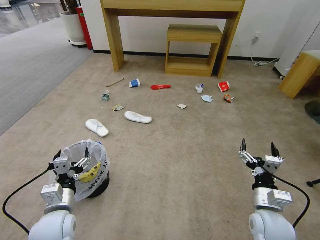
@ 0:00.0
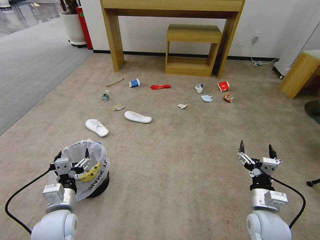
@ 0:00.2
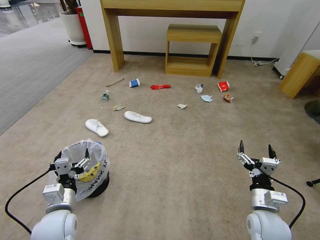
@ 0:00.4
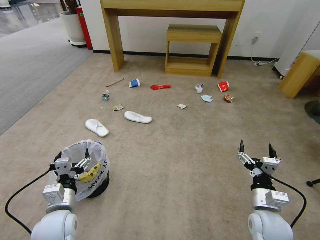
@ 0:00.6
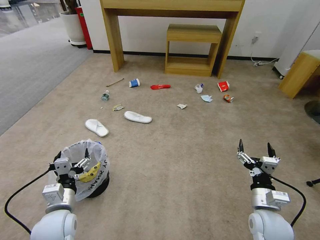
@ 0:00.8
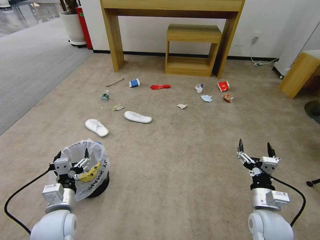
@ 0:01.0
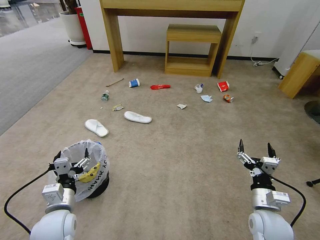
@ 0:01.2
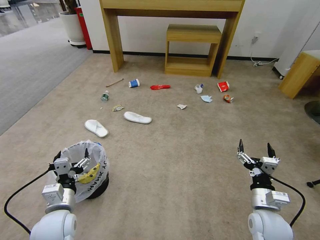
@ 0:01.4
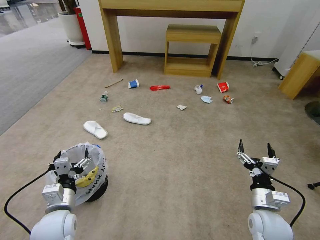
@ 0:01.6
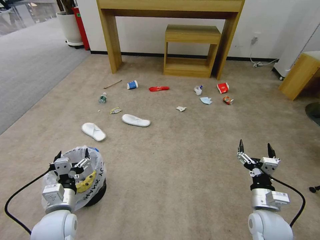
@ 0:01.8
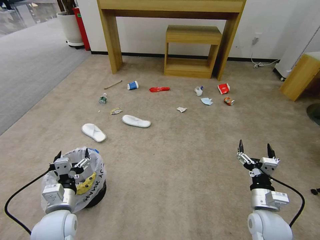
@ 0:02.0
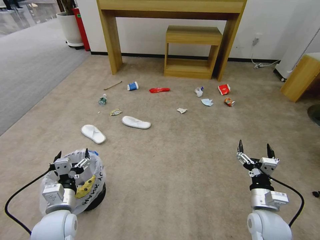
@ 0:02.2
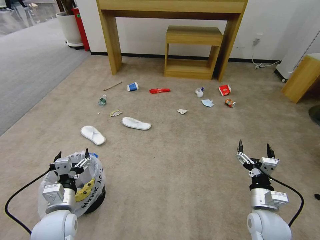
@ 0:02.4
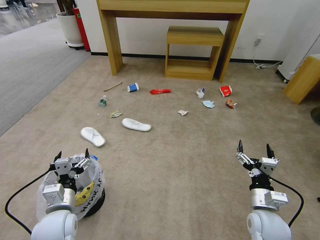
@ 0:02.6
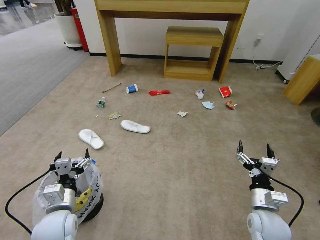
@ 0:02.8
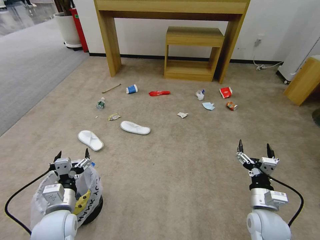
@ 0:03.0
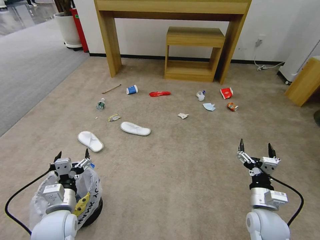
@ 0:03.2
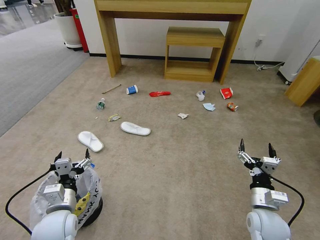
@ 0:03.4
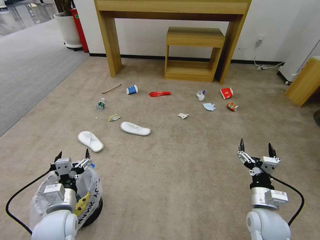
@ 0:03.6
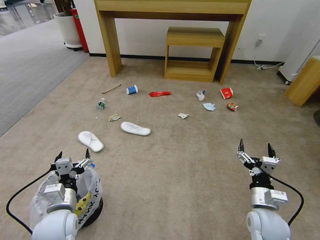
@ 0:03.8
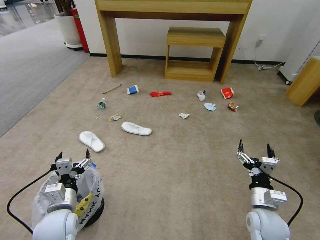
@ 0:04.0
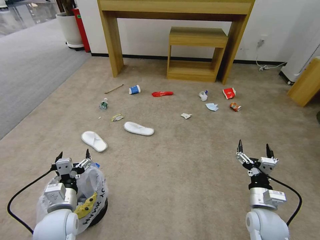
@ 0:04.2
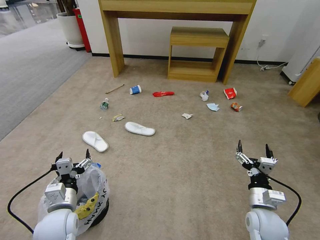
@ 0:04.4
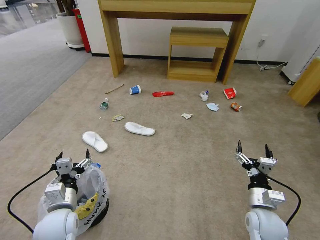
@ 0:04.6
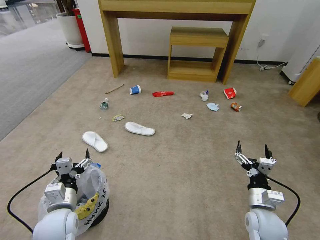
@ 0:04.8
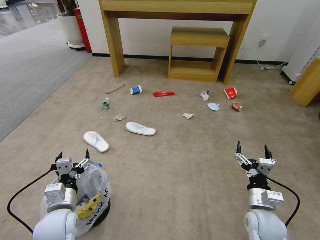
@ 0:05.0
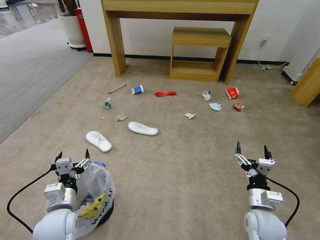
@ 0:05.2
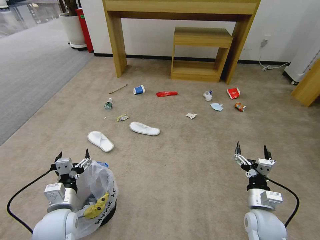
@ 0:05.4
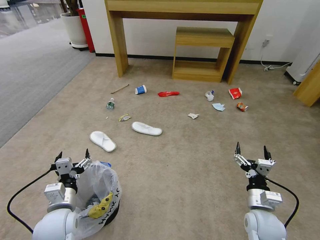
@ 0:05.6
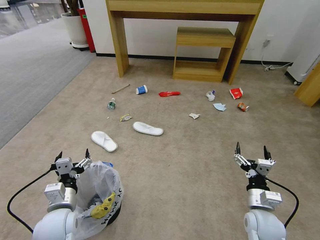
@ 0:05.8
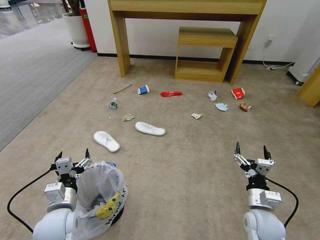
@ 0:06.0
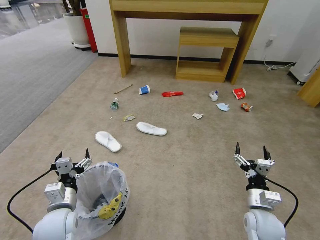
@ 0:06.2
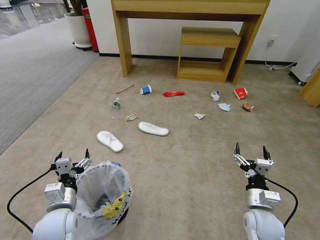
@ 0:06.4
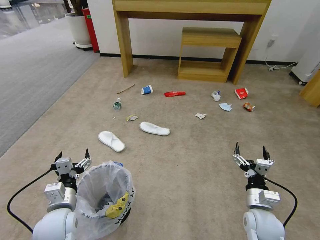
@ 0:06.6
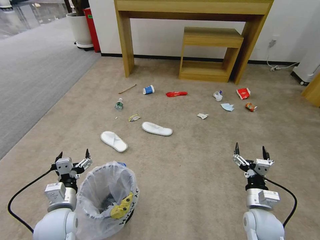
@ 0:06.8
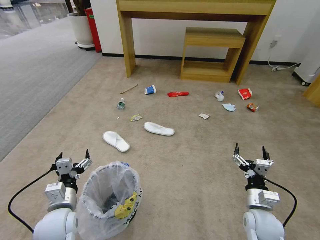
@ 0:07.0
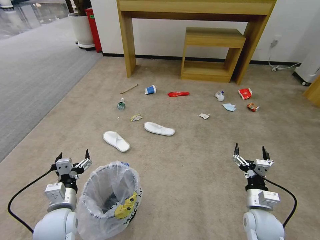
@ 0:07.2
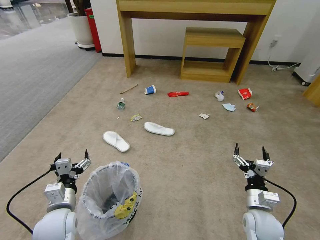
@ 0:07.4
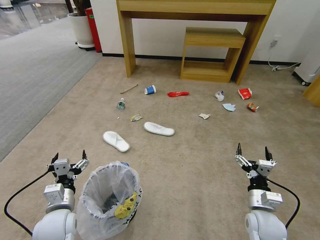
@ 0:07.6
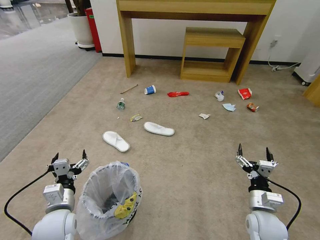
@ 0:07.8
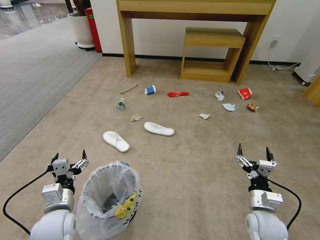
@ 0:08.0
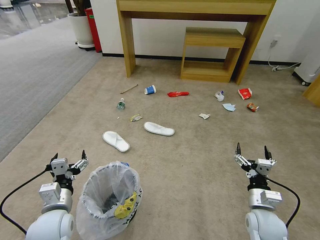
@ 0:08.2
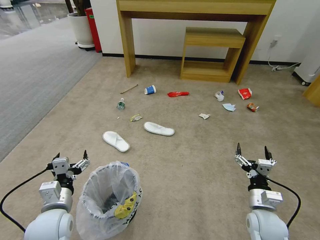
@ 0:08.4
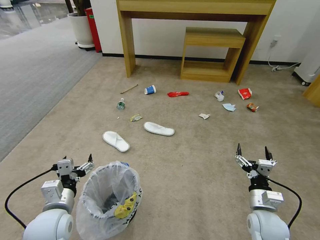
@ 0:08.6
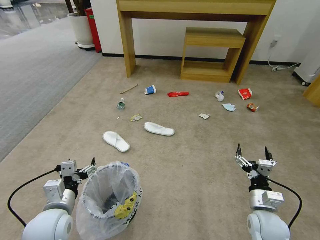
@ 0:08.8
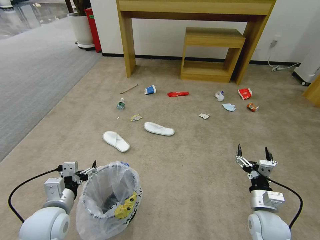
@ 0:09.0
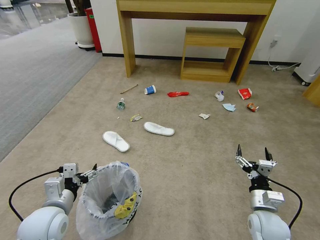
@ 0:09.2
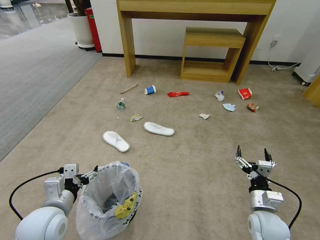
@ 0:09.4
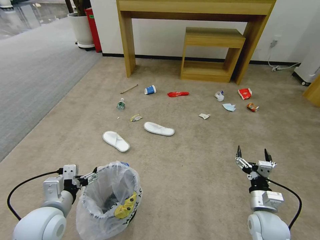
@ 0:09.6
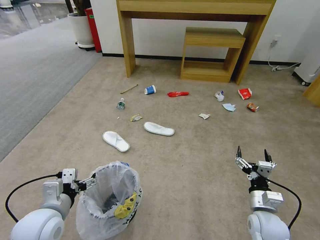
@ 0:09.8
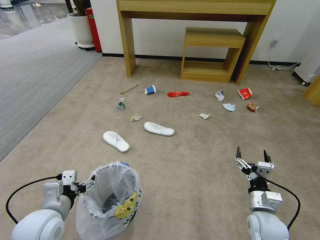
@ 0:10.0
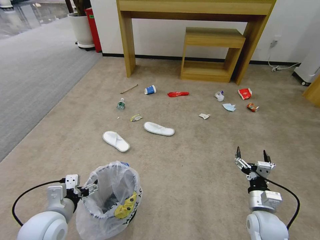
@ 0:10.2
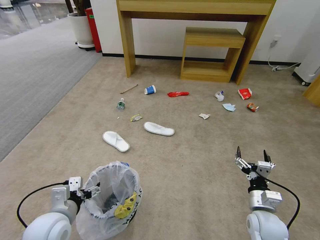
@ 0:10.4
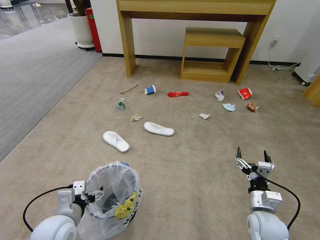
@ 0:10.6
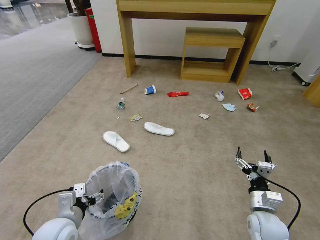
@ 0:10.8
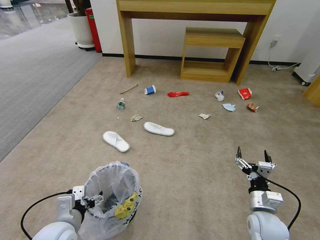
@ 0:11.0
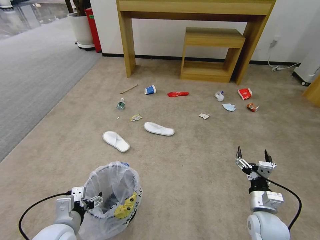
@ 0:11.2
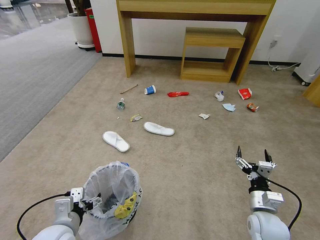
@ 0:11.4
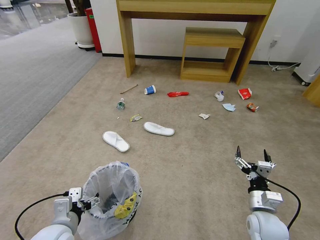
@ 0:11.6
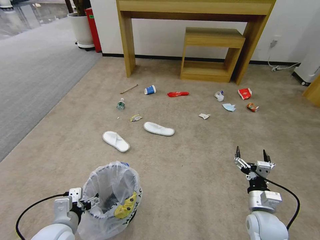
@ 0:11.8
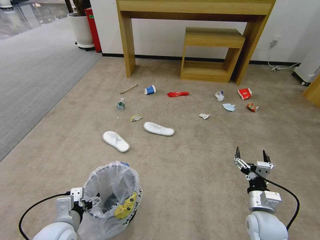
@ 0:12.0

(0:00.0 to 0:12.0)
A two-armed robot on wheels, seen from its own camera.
Task of the whole recording: Pick up the trash bin and place the garbage on the floor into it.
0:01.6 - 0:04.4: Both grippers stay put.
0:04.4 - 0:06.0: Both grippers stay put.
0:06.0 - 0:07.6: The two grippers keep their place.
0:07.6 - 0:09.0: The grippers stay close to where they were, moving slightly.
0:09.0 - 0:10.4: There are only small adjustments of the grippers.
0:10.4 - 0:12.0: The grippers move only a little.

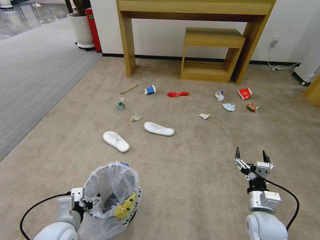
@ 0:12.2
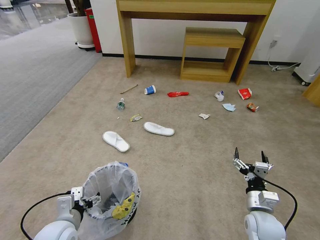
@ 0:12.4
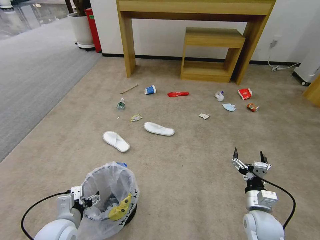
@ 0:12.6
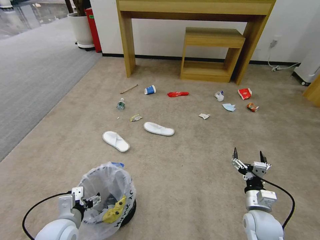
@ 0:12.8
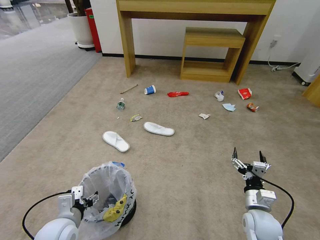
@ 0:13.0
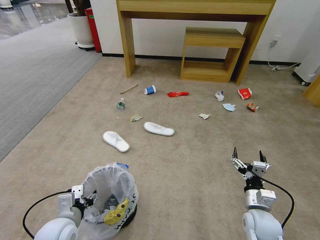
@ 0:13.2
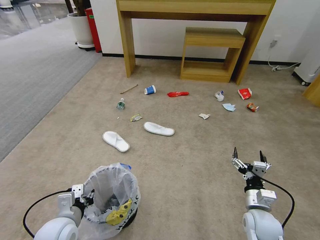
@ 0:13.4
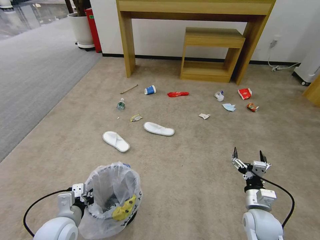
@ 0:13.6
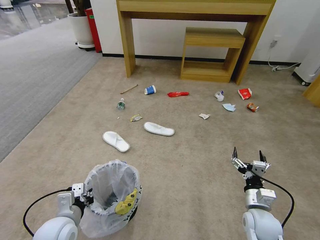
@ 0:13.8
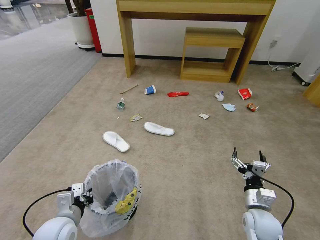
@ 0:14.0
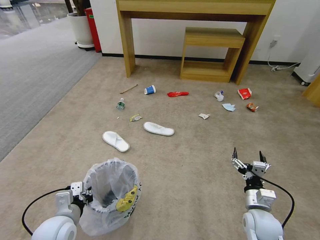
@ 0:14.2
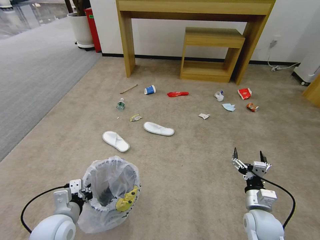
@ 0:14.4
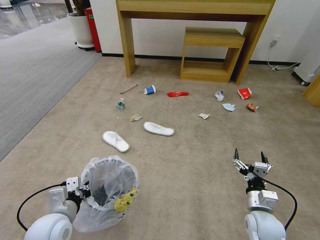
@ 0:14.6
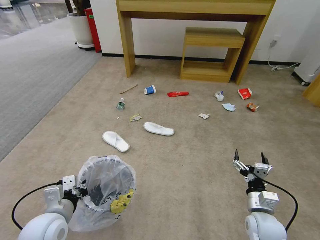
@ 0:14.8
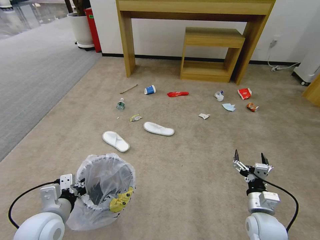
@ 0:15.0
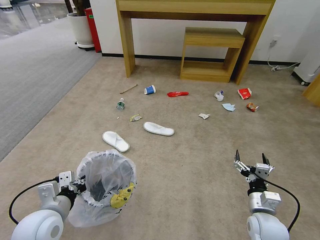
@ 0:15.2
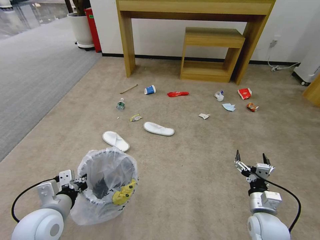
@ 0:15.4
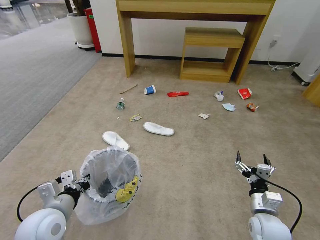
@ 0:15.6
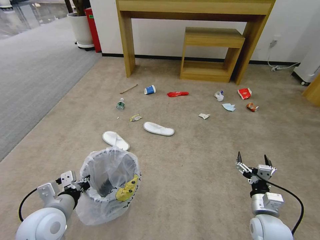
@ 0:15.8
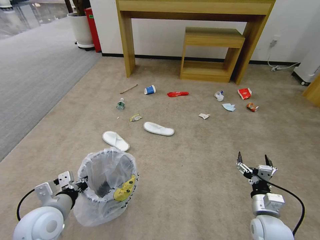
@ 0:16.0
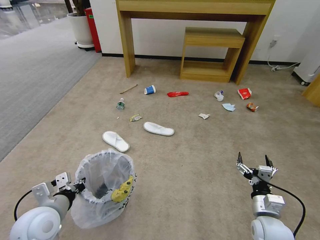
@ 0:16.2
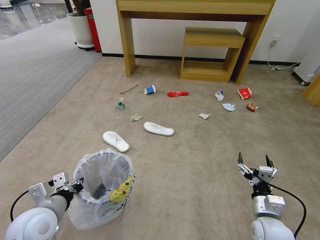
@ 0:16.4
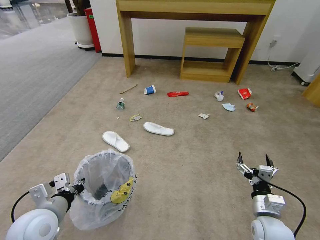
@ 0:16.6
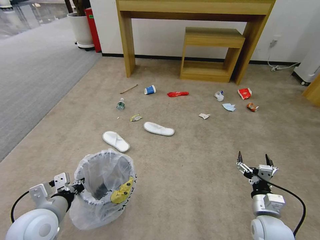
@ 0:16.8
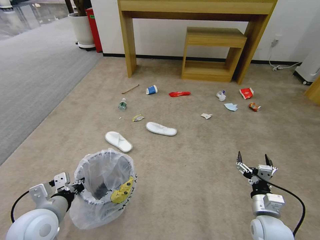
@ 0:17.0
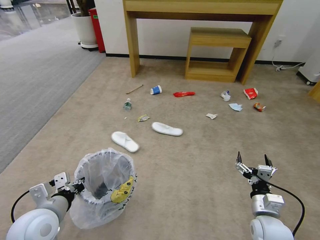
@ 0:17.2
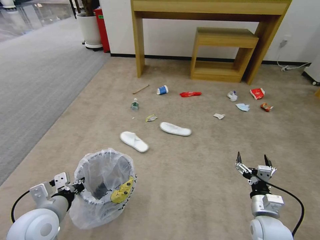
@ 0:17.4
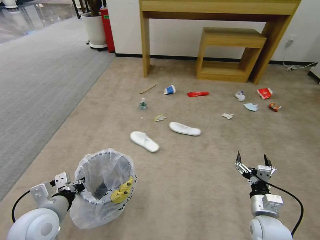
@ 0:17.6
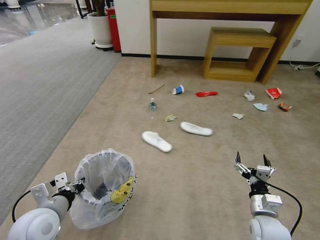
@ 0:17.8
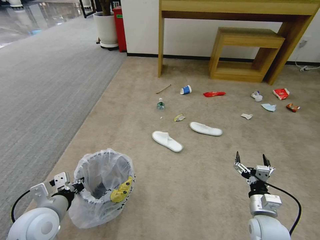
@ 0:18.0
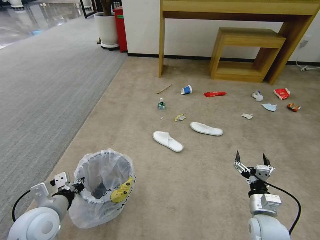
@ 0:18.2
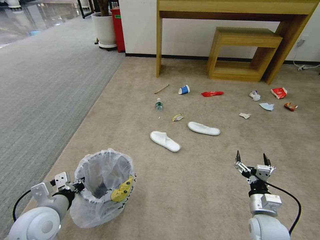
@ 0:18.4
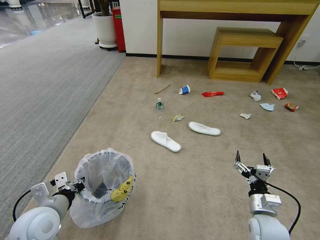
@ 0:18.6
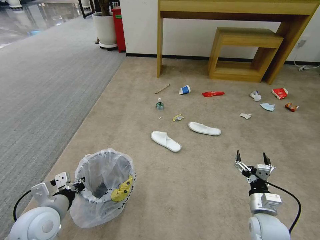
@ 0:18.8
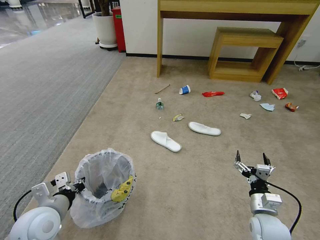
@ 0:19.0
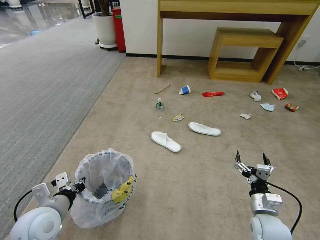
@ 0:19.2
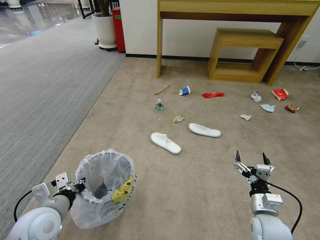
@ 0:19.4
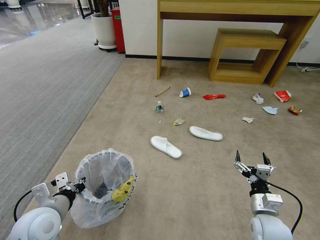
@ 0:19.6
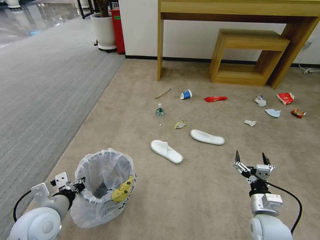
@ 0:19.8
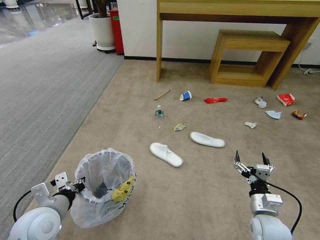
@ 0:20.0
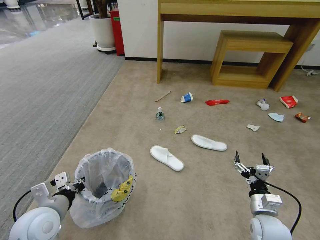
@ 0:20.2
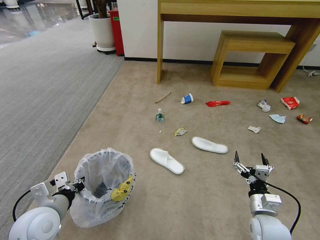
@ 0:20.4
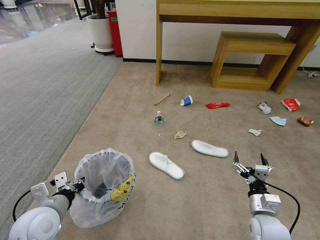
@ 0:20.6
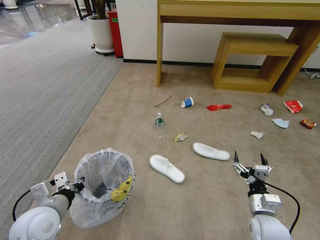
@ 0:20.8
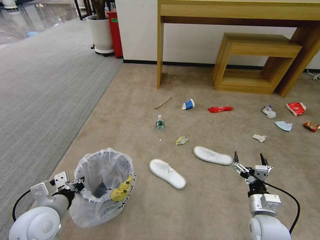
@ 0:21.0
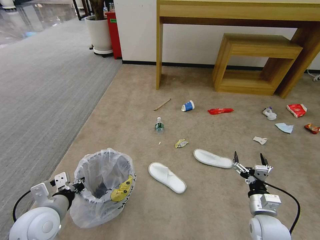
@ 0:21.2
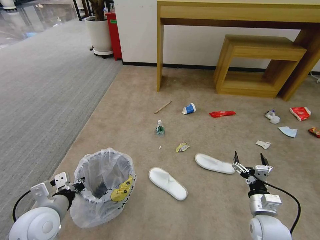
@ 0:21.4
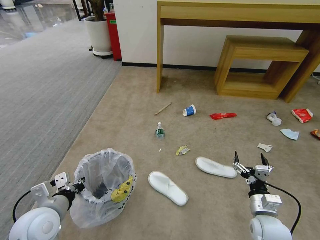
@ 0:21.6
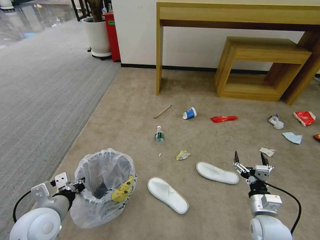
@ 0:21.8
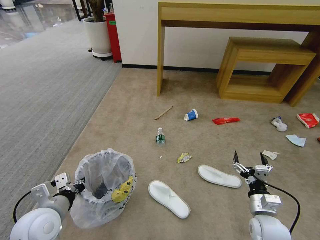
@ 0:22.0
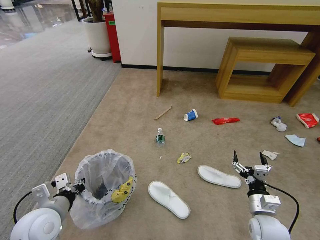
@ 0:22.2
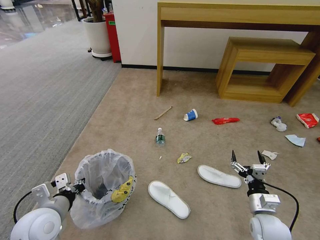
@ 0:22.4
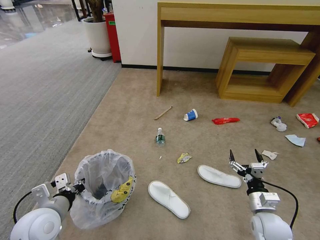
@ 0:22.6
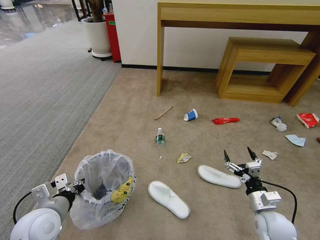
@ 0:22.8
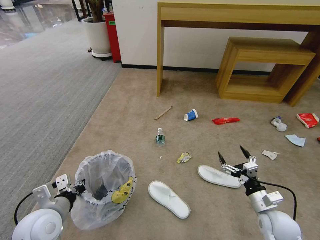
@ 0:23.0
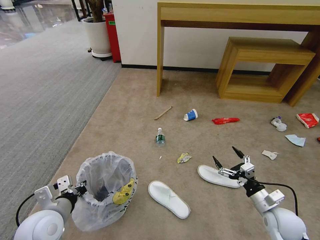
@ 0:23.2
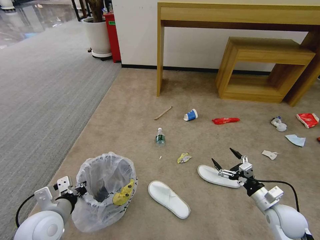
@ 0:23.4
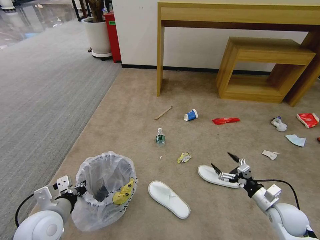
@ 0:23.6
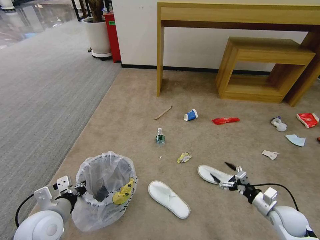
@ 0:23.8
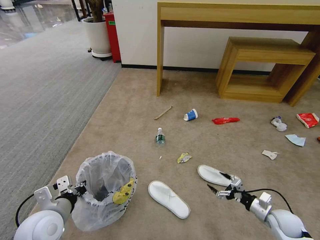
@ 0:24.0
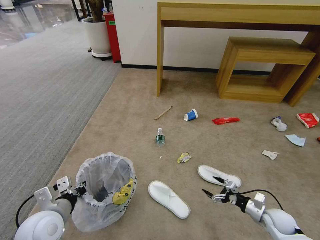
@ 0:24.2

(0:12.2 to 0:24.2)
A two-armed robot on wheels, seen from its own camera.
Task of the whole recording: Pick up the trash bin and place the garbage on the floor into it.
0:12.2 - 0:13.8: The left gripper closes up.
0:13.8 - 0:15.2: The left gripper is displaced upward by roughly 5 cm.
0:15.2 - 0:16.6: The grippers make only small movements.
0:18.2 - 0:21.2: Both grippers stay about where they are.
0:22.6 - 0:24.2: The right gripper goes approximately 15 cm to the right and downward.
